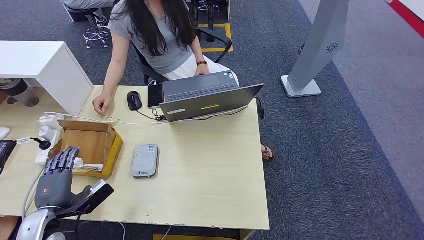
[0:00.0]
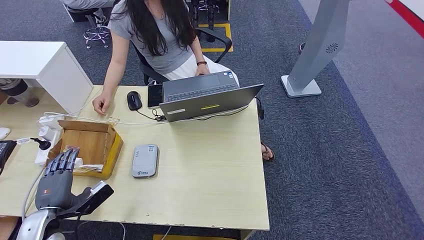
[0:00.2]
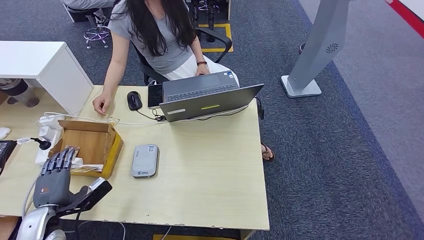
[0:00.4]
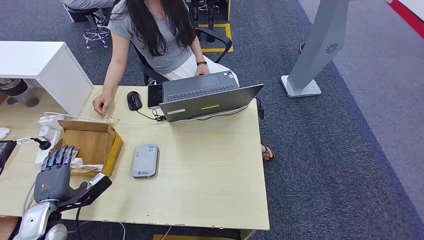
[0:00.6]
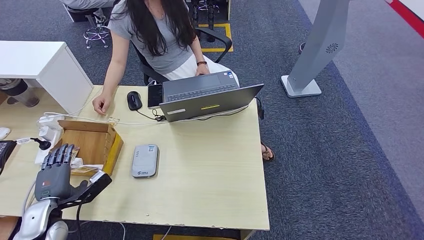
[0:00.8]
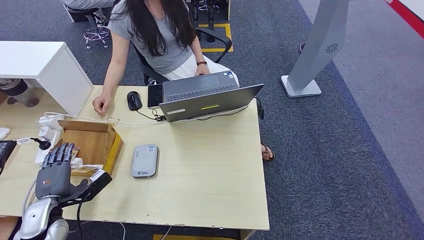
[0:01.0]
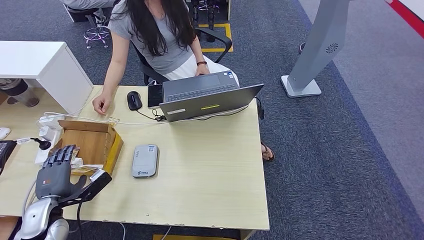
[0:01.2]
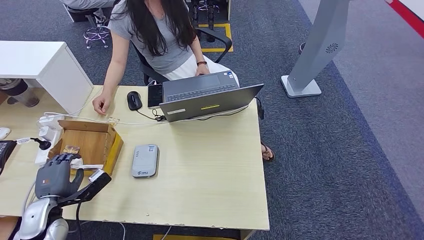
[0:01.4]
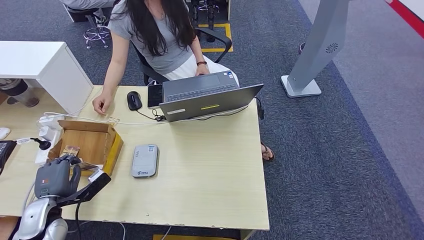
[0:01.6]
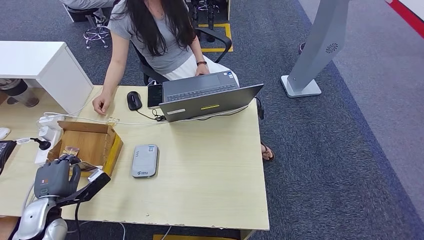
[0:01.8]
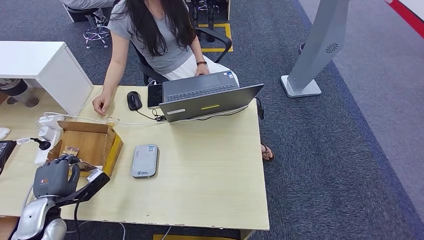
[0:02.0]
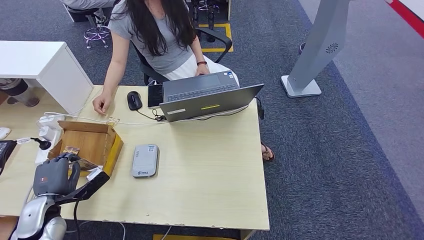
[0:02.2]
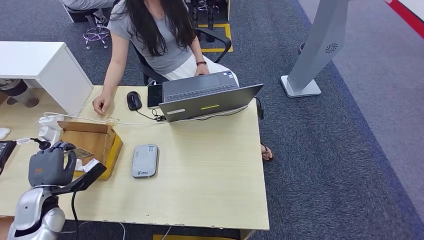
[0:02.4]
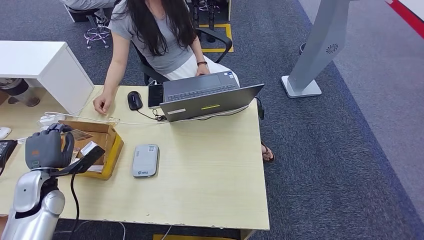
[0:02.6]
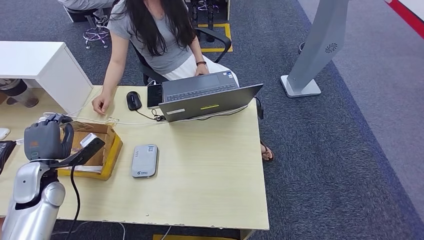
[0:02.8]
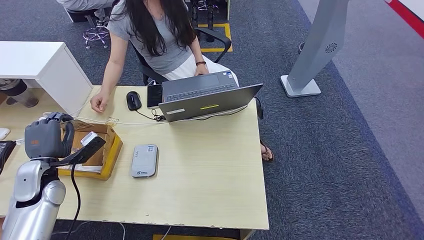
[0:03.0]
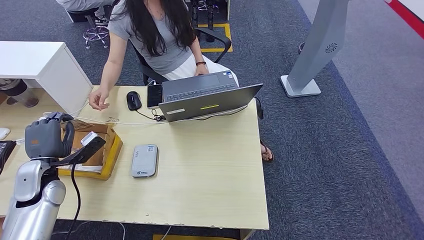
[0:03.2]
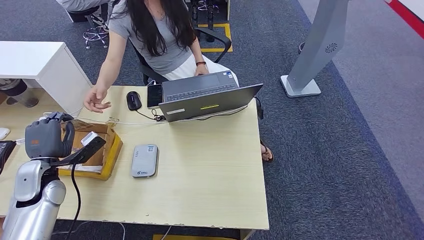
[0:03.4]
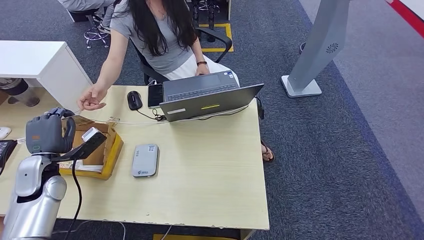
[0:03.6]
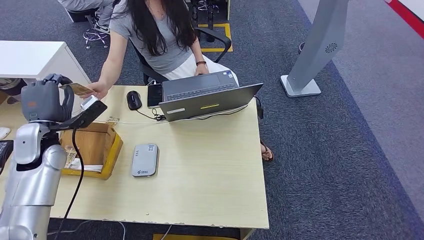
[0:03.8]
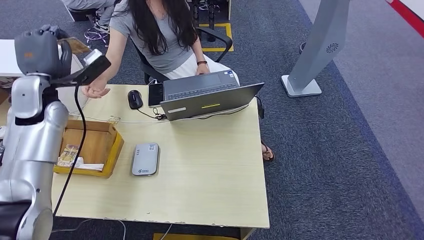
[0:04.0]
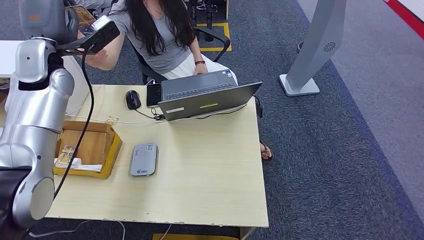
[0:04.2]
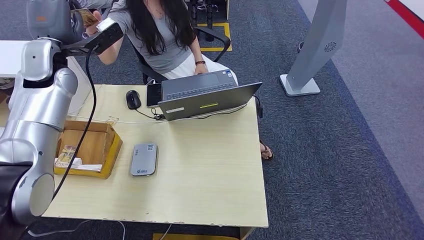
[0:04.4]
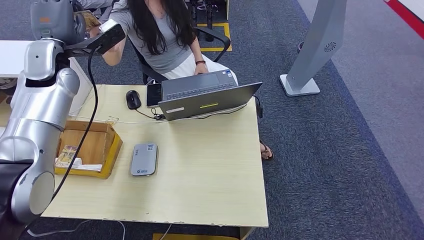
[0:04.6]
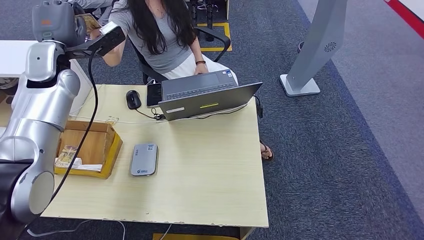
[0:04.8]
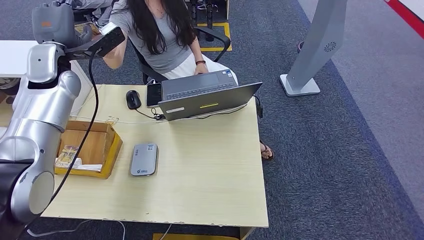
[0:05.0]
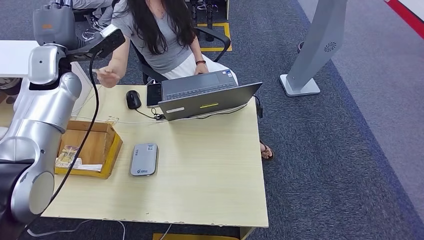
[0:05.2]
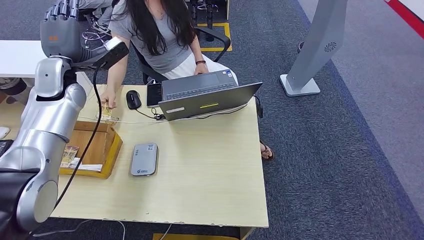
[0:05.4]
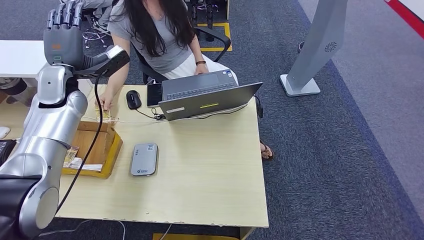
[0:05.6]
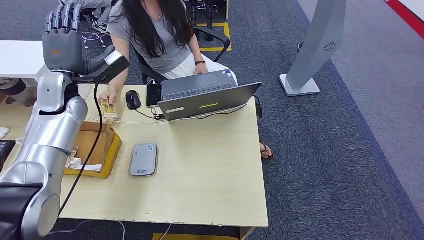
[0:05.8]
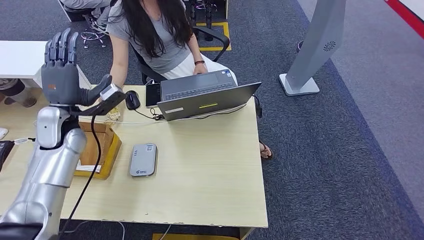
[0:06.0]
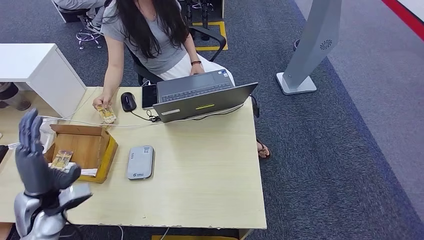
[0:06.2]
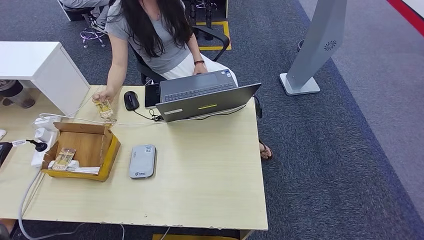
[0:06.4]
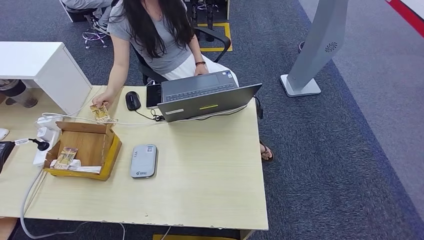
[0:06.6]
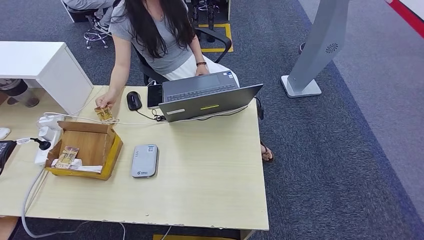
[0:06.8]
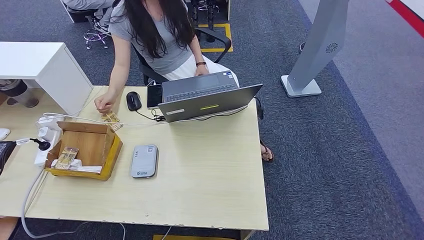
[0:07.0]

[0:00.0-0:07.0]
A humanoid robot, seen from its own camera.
Step, 0:00.0 to 0:03.2: Pick up the room key from the key card box.
Step, 0:04.0 to 0:07.0: Hand the room key to the person.
0:00.0 to 0:01.4: The hands move only a little.
0:01.4 to 0:02.8: The left hand moves forward and upward, roughly 10 cm.
0:04.2 to 0:05.6: The left hand travels downward by some 5 cm.
0:05.6 to 0:07.0: The left hand travels backward by some 40 cm.
